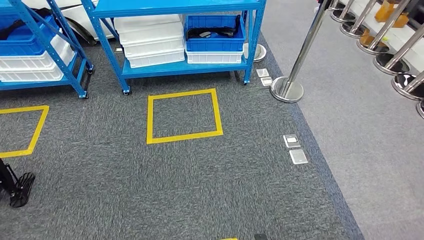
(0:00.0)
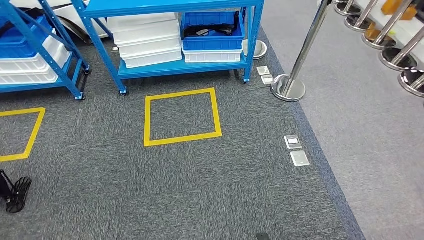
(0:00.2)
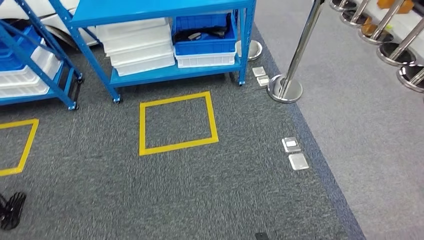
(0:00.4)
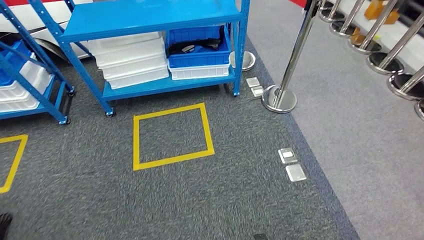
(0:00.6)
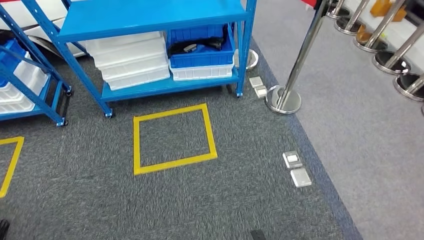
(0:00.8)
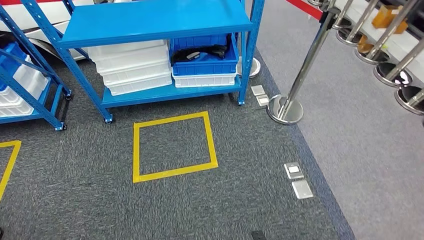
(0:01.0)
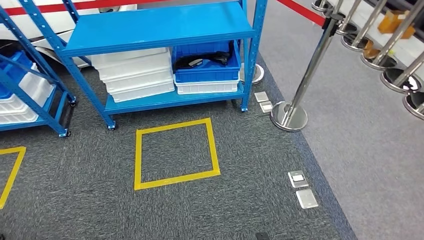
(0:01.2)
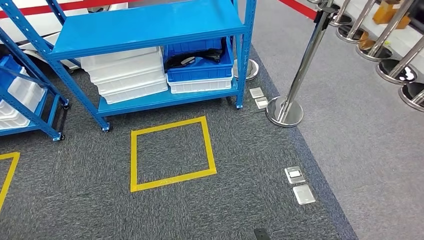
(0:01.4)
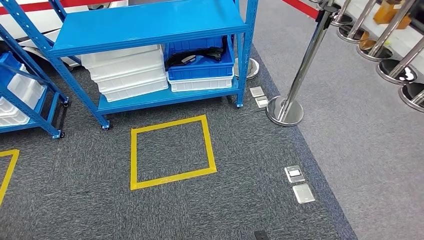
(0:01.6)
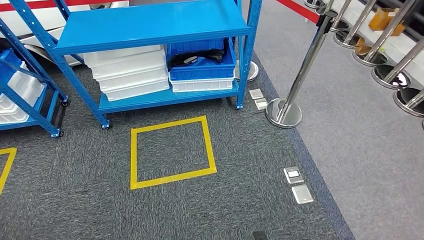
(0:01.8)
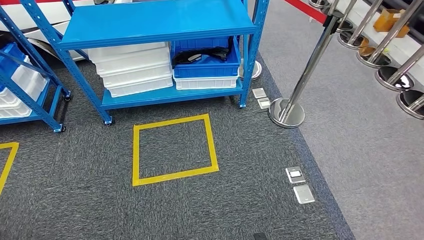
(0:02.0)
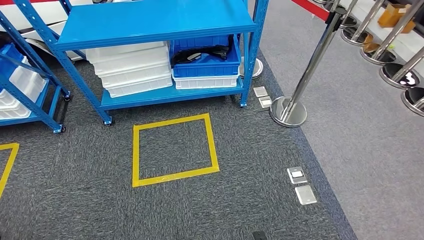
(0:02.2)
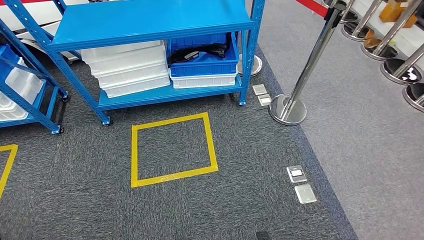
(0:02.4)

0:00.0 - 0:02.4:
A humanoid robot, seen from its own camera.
Step, 0:00.0 - 0:02.4: Move to the initial position of the shelf.
